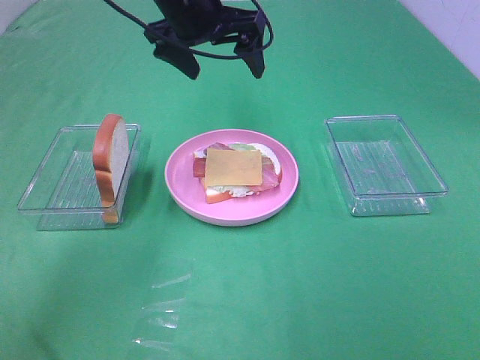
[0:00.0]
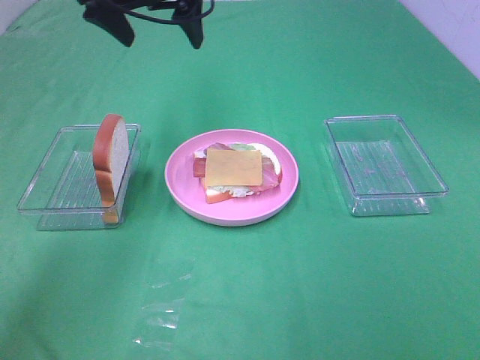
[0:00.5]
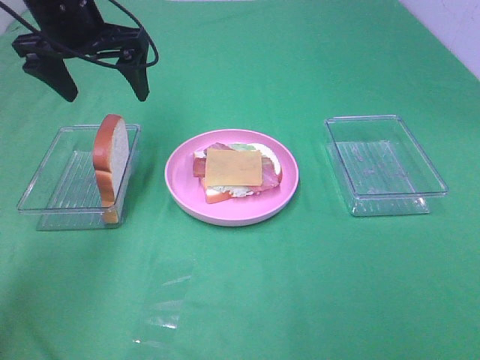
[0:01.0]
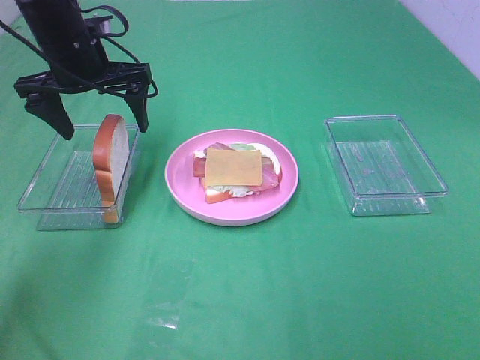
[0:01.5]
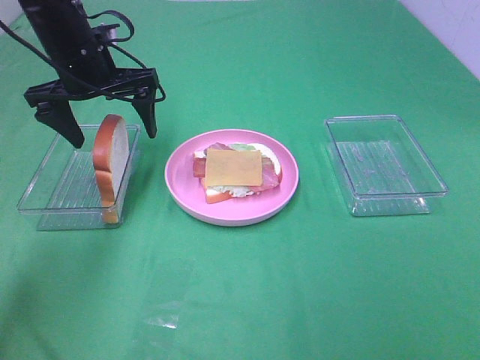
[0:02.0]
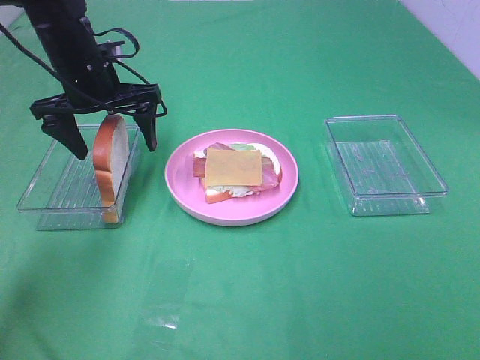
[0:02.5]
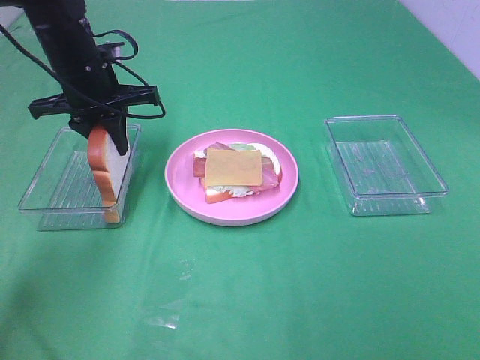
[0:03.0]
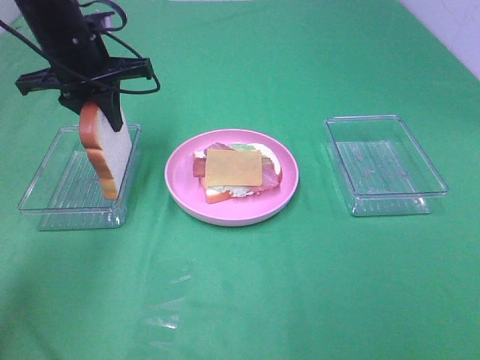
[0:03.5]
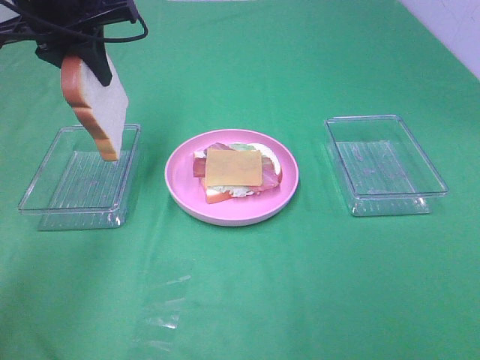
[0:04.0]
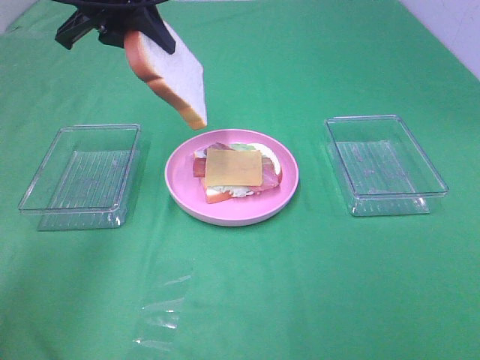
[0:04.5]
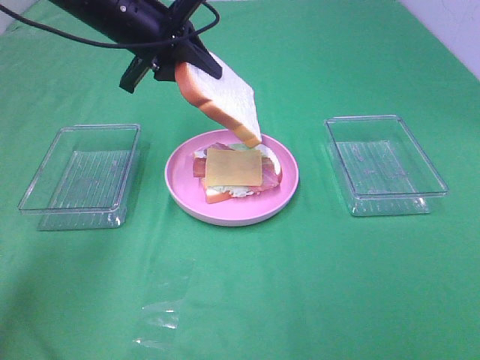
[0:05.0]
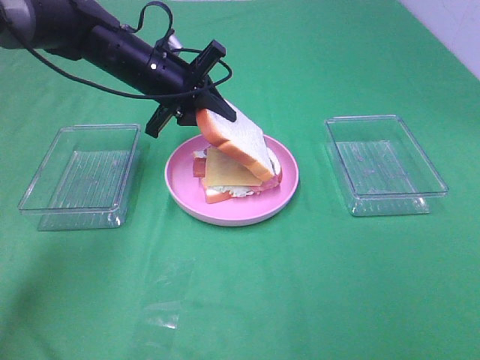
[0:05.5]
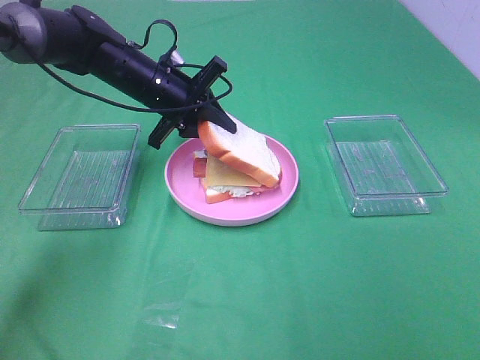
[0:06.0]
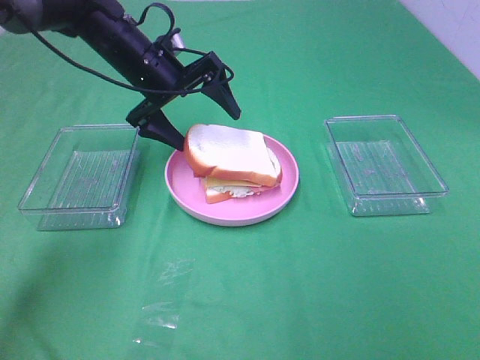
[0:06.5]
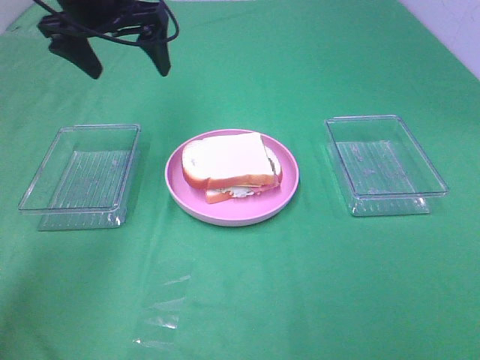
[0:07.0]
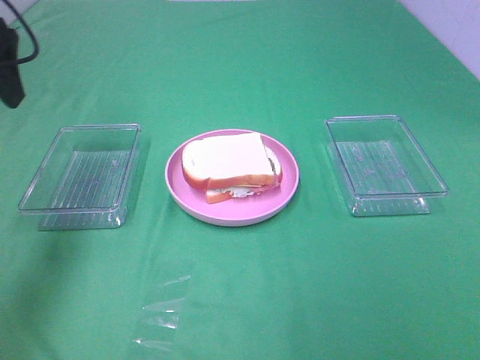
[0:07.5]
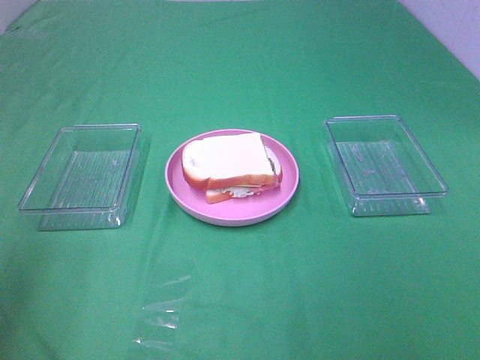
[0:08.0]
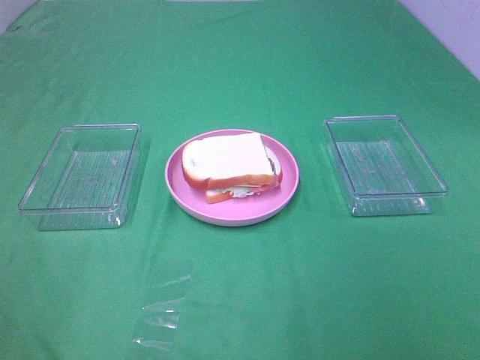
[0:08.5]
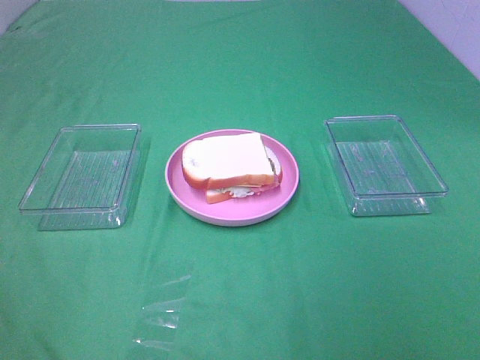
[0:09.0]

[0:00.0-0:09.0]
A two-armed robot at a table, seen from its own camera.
Task of the whole recording: Make sandwiches.
Step, 0:00.0 to 0:03.0: Left hand:grab the bread slice.
Step, 0:03.5 to 0:06.5: Left hand:place the bread slice on the cheese slice.
0:00.0 to 0:02.0: The left gripper is displaced to the left and downward by approximately 15 cm.
0:02.0 to 0:04.5: The left gripper moves upward, about 10 cm, and closes.
0:04.5 to 0:07.0: The left gripper travels downward and back again, about 15 cm each way, and opens.
0:07.0 to 0:09.0: The left gripper is displaced backward by roughly 50 cm.

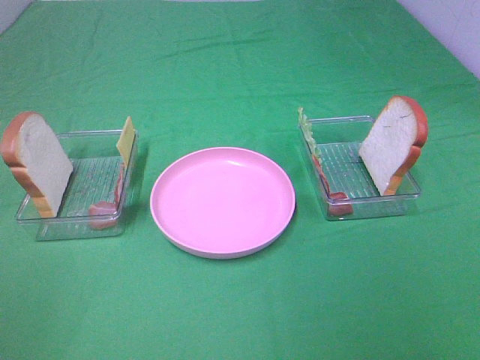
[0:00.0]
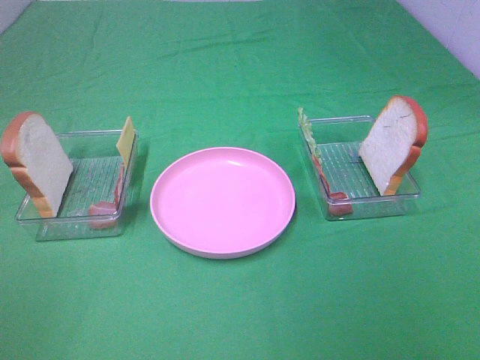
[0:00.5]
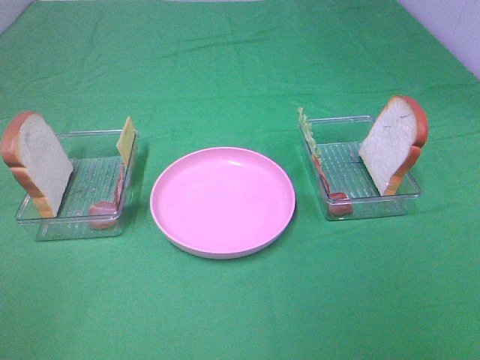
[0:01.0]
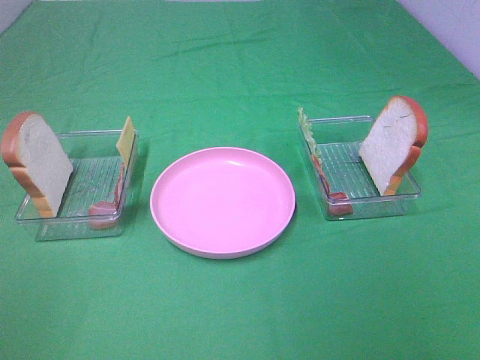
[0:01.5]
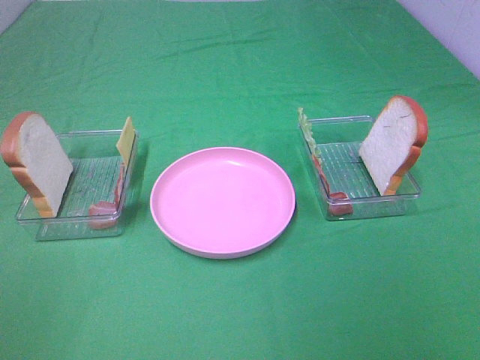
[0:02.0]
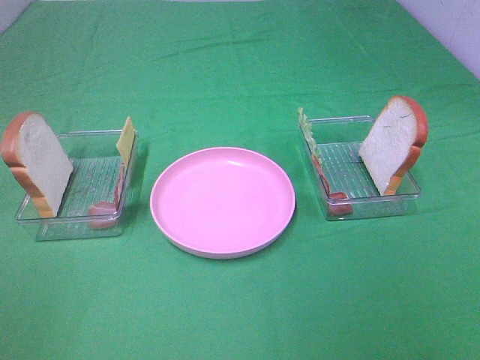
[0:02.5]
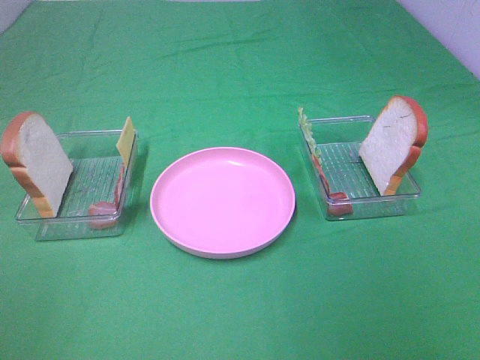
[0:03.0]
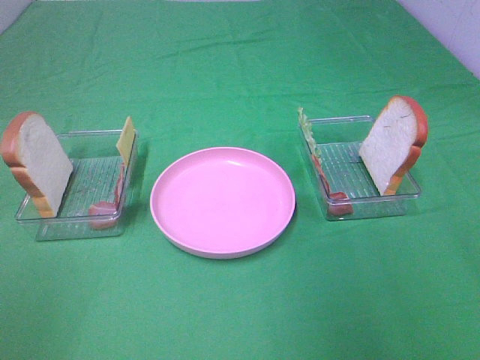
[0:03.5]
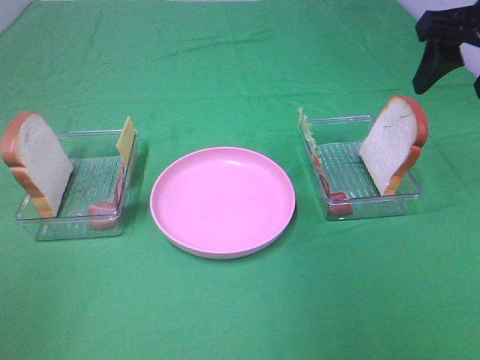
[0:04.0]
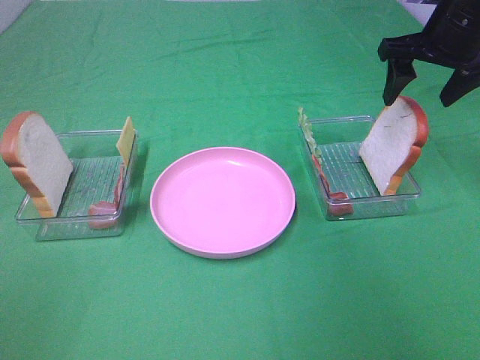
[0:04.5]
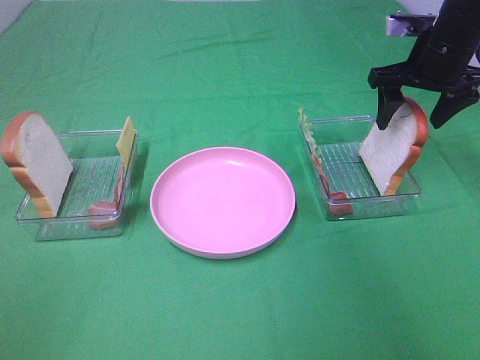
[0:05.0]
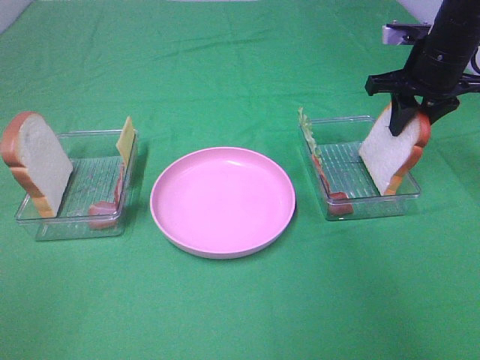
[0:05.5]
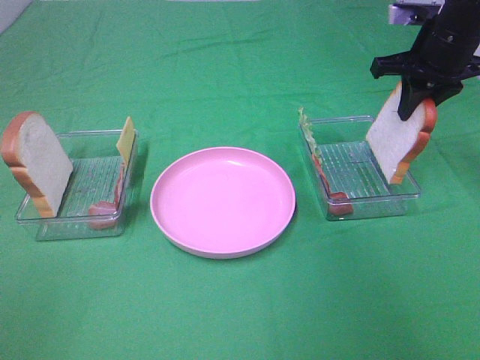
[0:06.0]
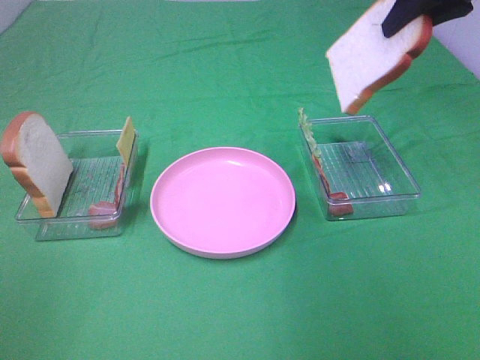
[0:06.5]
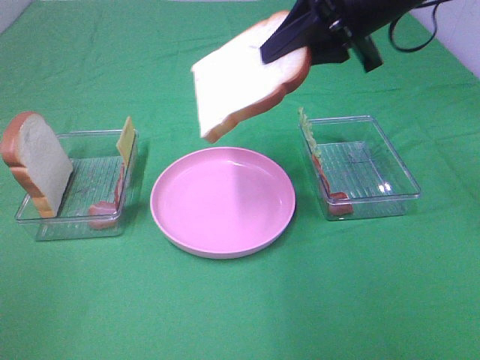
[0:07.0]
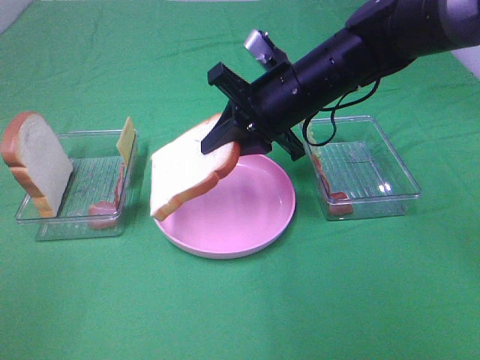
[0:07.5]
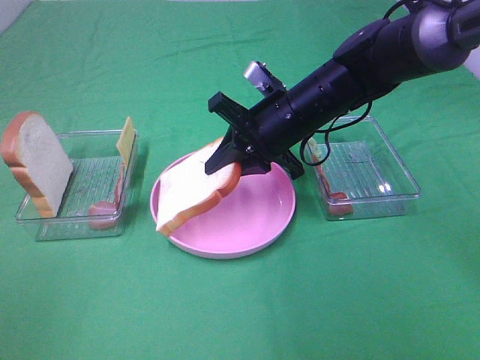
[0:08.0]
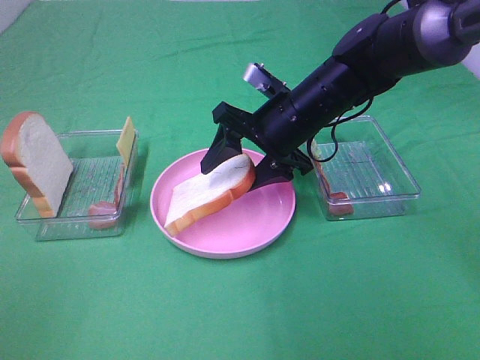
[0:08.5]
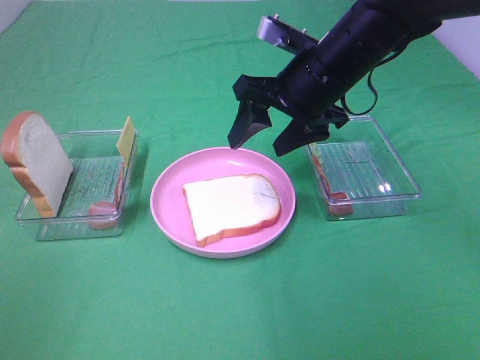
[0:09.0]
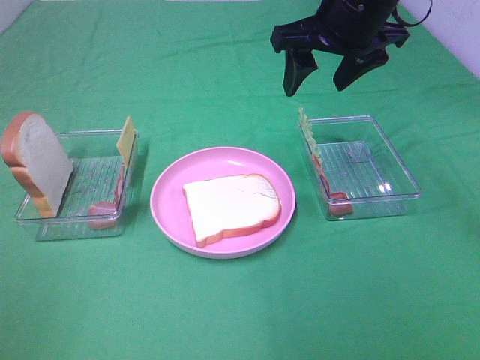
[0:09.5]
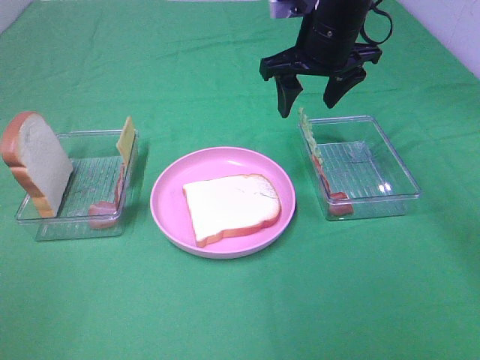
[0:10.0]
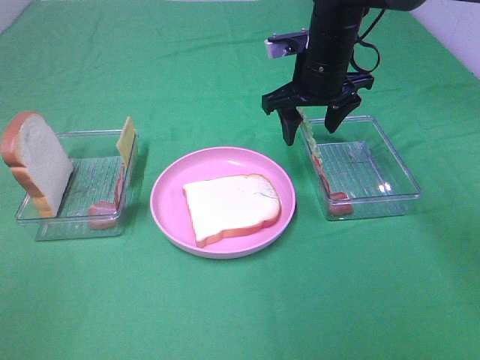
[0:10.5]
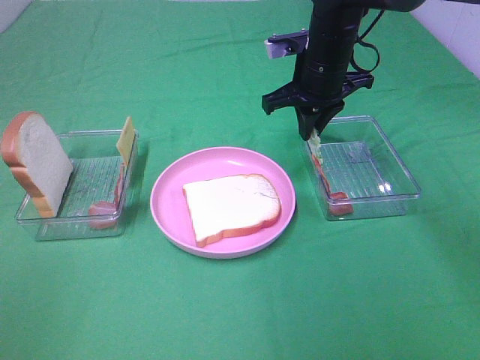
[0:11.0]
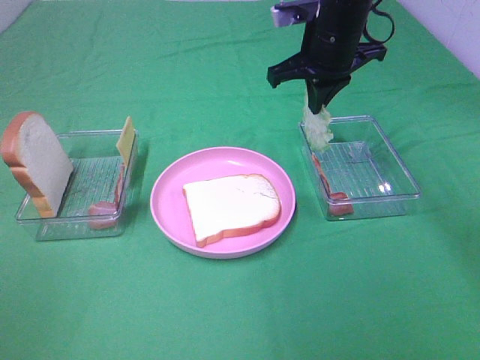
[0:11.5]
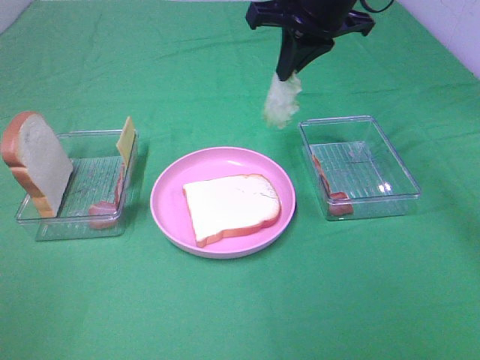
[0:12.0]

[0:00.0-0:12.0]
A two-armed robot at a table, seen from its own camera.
Task of the whole recording: Make sandwiches.
Step, 0:00.0 to 0:05.5: Right hand:grab the bread slice.
Step, 0:06.0 to 0:09.0: Right hand:place the bread slice on the plate.
Step, 0:09.5 to 0:11.0: Right hand:grab the lettuce slice.
0:00.0 to 0:02.0: Both grippers stay about where they are.
0:02.0 to 0:04.0: The right gripper is displaced forward by about 35 cm.
0:04.0 to 0:06.0: The right gripper goes approximately 10 cm forward and downward, and closes.
0:06.0 to 0:08.0: The right gripper travels to the left and downward by about 20 cm.
0:08.0 to 0:10.0: The right gripper goes approximately 10 cm upward and forward, and opens up.
0:10.0 to 0:12.0: The right gripper goes approximately 5 cm upward, and closes up.

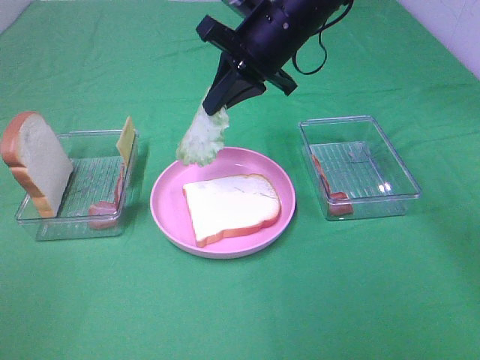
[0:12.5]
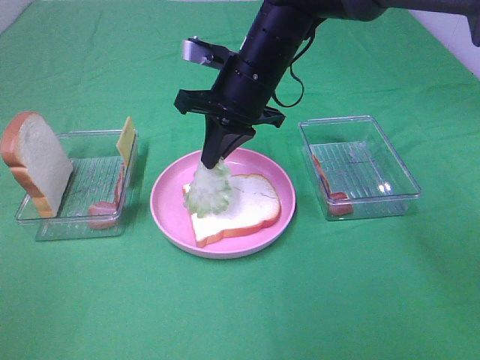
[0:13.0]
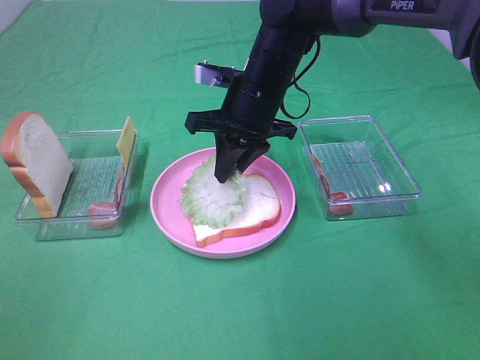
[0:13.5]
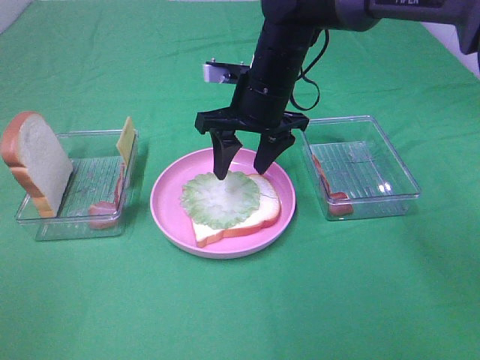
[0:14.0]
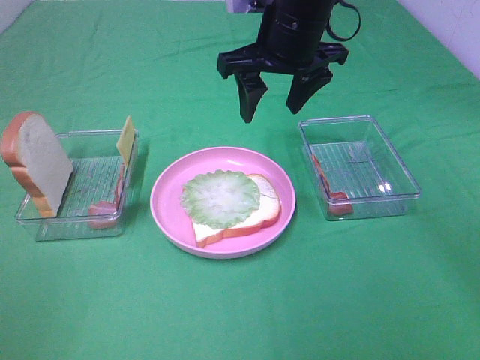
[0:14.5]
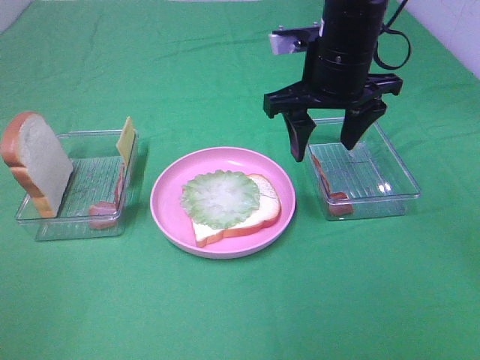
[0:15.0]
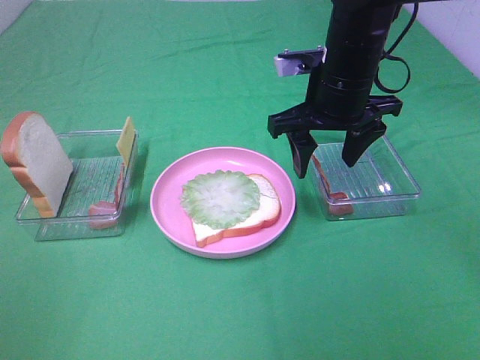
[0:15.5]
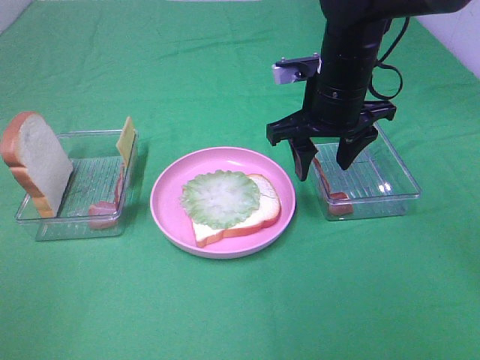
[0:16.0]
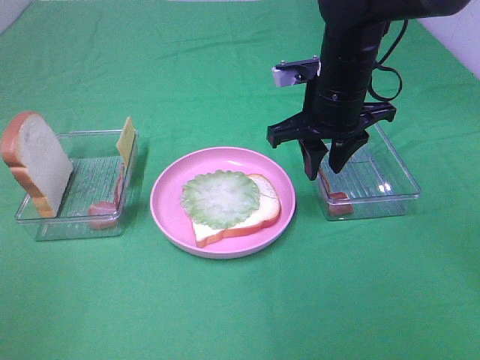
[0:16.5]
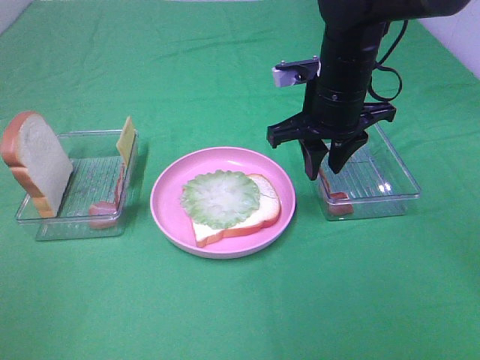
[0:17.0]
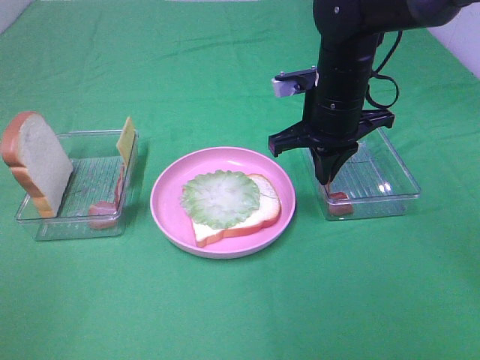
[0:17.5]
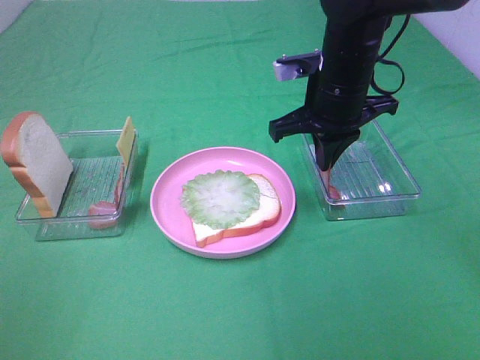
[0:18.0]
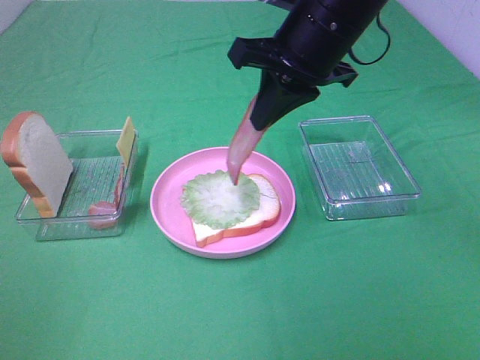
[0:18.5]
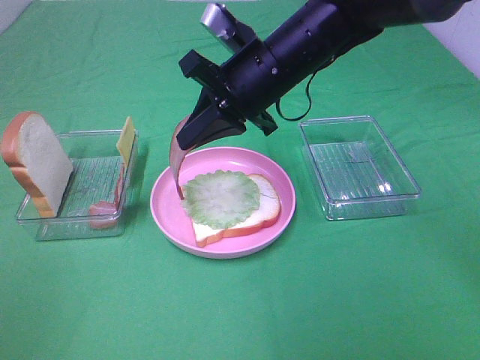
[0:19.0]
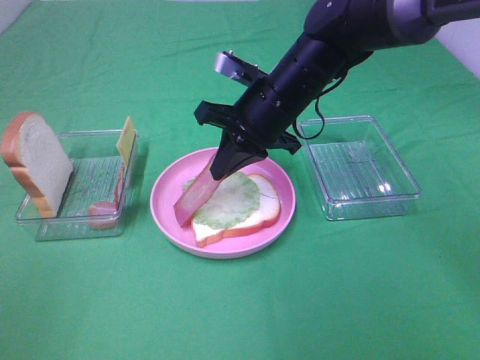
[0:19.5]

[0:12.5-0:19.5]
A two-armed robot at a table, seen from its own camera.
Task of the whole recording: Make sandwiches.
Step, 0:14.5 to 0:18.0: Right hand:grab the bacon.
0:12.5 to 0:14.5: The right gripper travels downward and back again, roughly 5 cm each way, and opens up.
0:14.5 to 0:16.0: The right gripper goes roughly 5 cm downward.
0:16.0 to 0:17.5: The right gripper closes up.
0:17.5 to 0:19.5: The right gripper heads to the left, covering some 5 cm, and goes upward and returns, some 10 cm each way.
